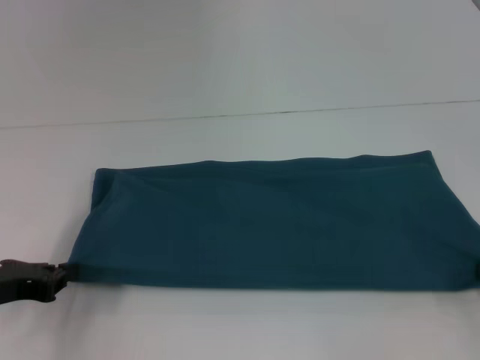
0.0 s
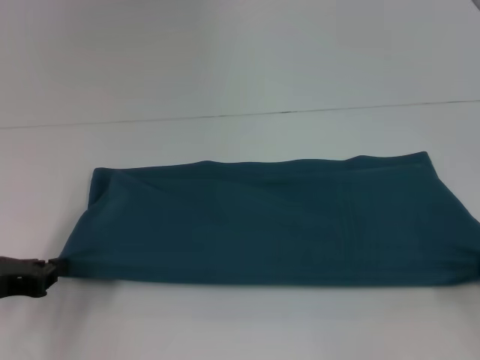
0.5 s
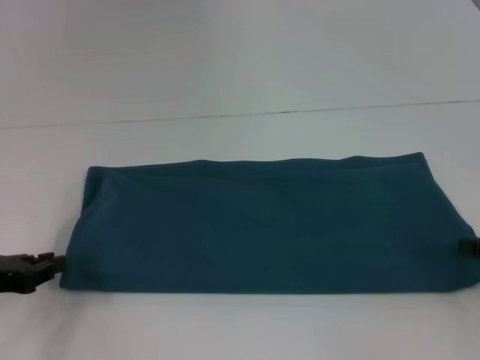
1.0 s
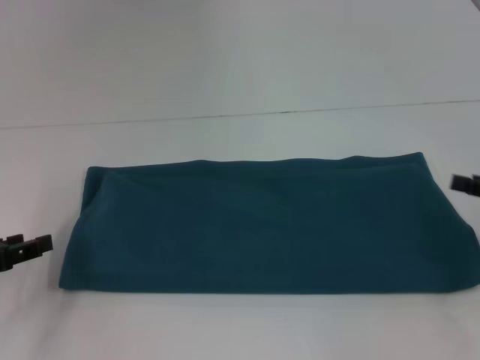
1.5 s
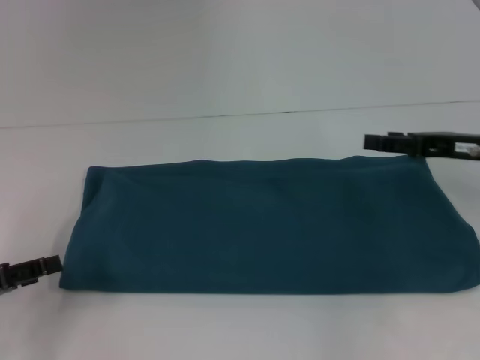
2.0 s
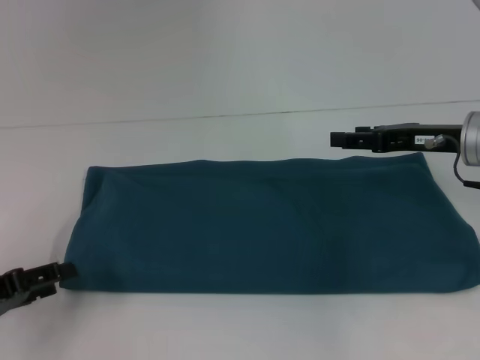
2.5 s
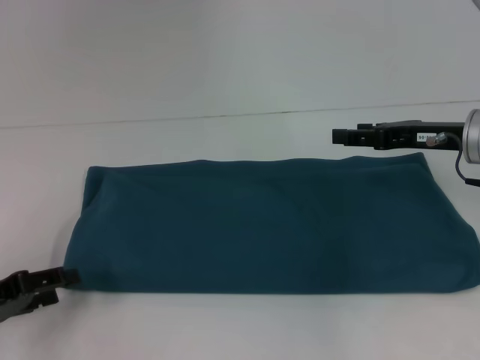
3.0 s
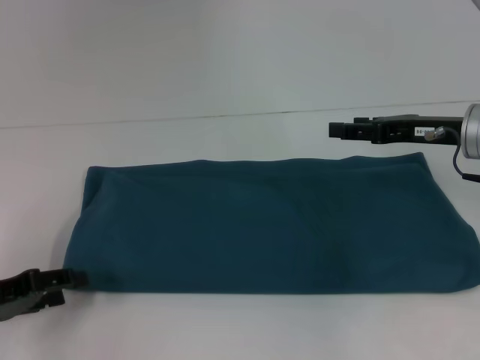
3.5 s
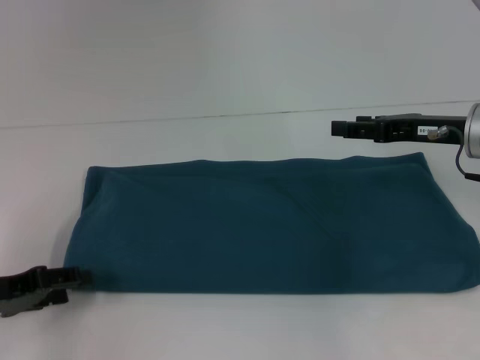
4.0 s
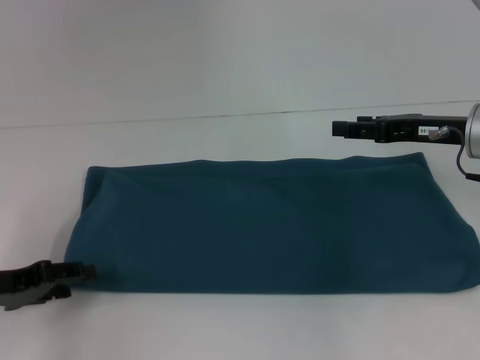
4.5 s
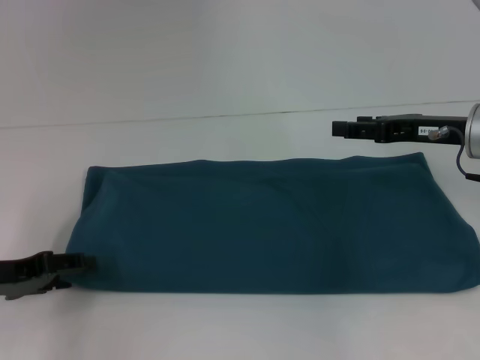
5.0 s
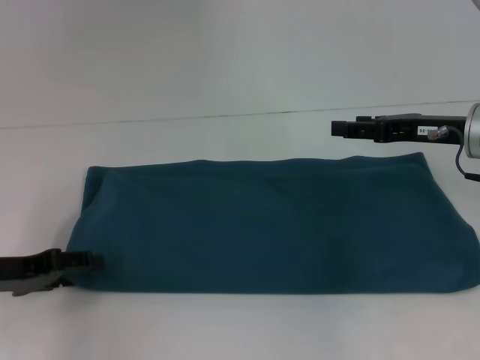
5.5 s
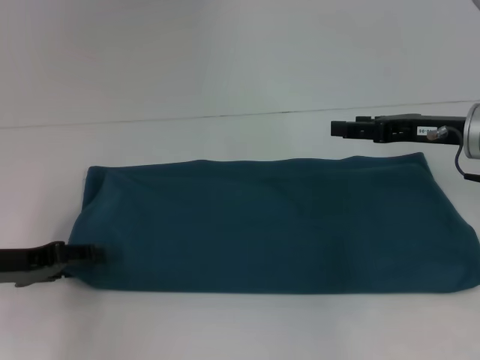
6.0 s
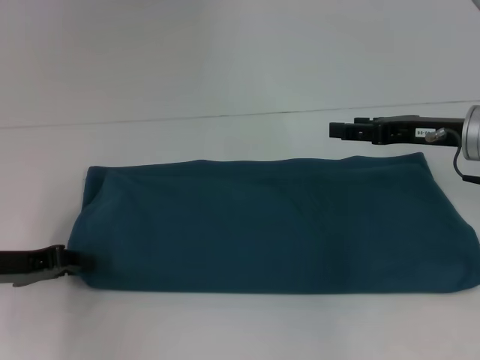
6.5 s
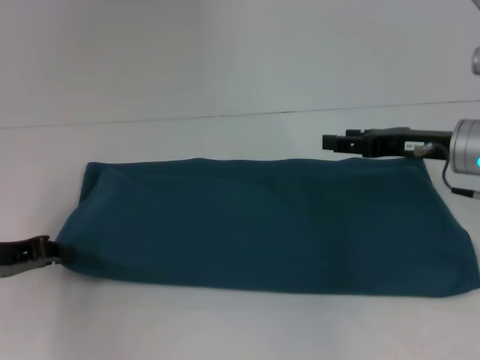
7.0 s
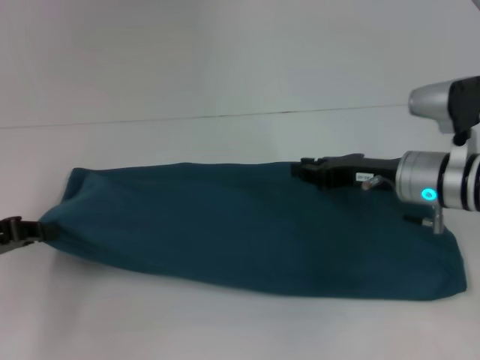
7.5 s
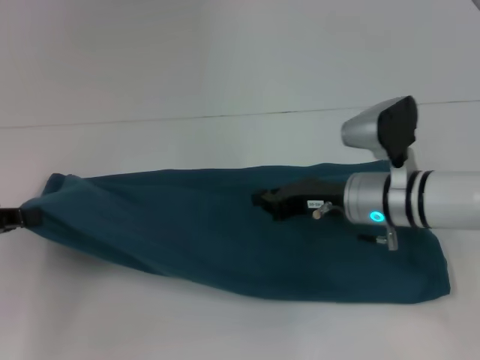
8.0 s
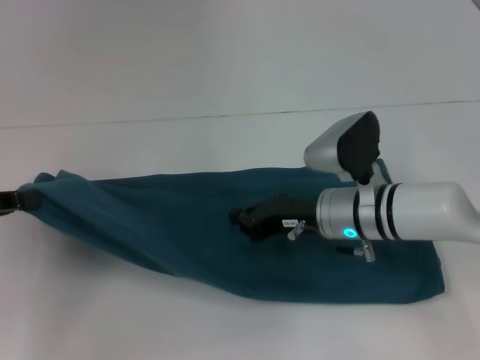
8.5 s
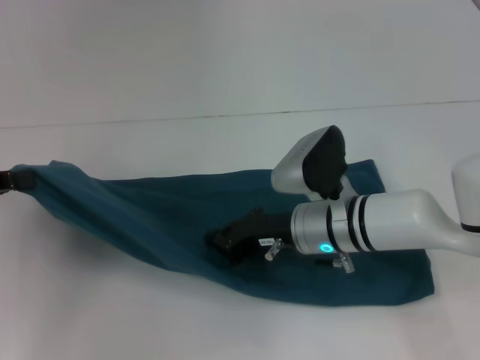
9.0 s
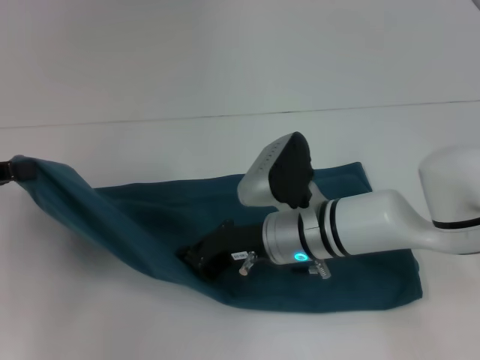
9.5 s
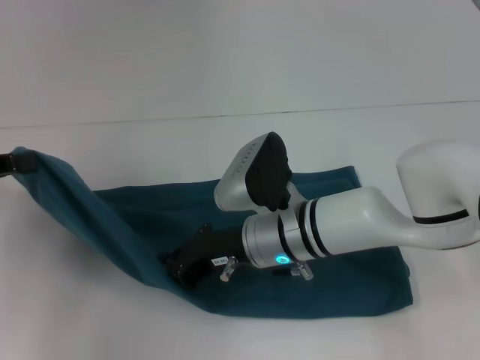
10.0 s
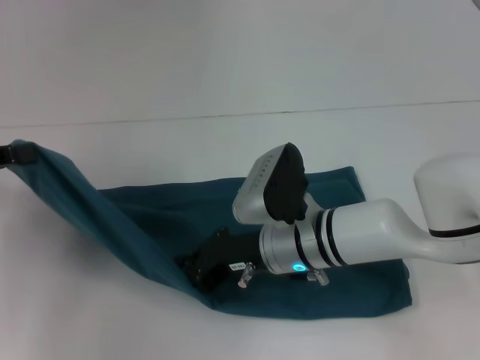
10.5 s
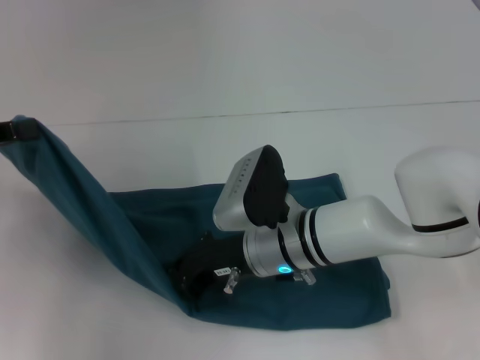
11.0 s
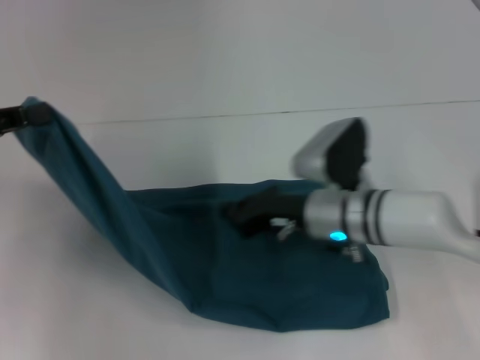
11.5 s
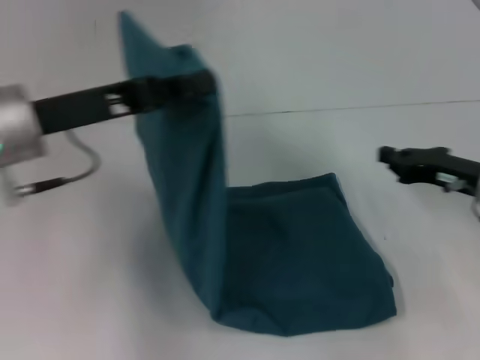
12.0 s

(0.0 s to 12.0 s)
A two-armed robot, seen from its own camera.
Step, 0.5 s - 11.0 s: Press the middle of the clothes with your right hand.
0.0 s - 2.0 s: The right gripper moves forward, to the left and upward, about 15 cm, and opens; the left gripper opens its fingers.
2.0 s - 4.0 s: The grippers move only a little.
4.0 s - 6.0 s: The grippers move only a little.
6.0 s - 8.0 s: The right gripper shifts some 15 cm to the left and downward, and closes, while the left gripper heads upward, covering about 5 cm, and closes.
8.0 s - 10.0 s: The right gripper goes roughly 10 cm to the left.
10.0 s - 12.0 s: The right gripper shifts about 25 cm to the right. The left gripper shifts approximately 15 cm to the right.

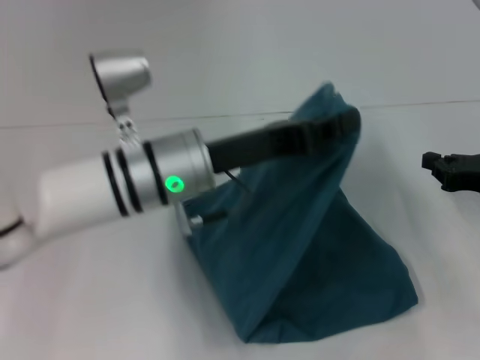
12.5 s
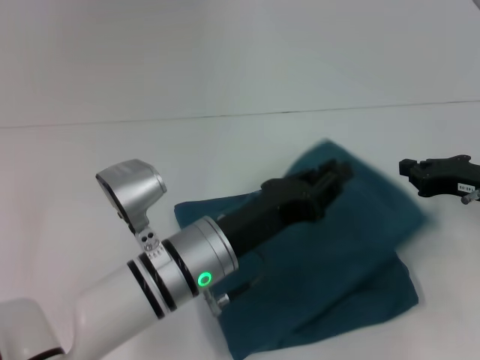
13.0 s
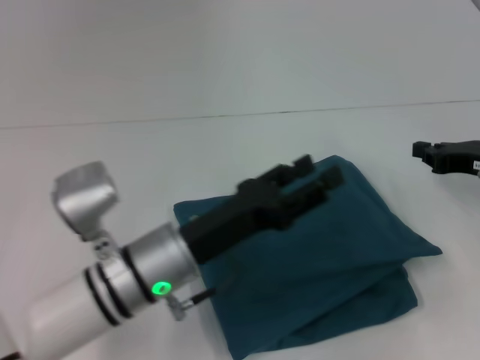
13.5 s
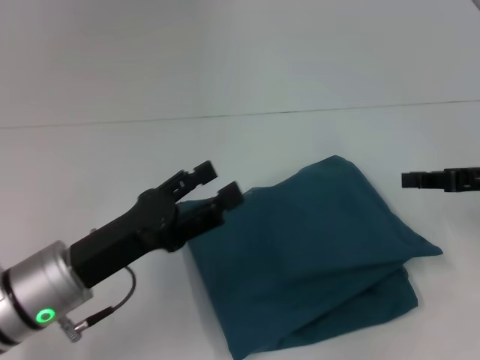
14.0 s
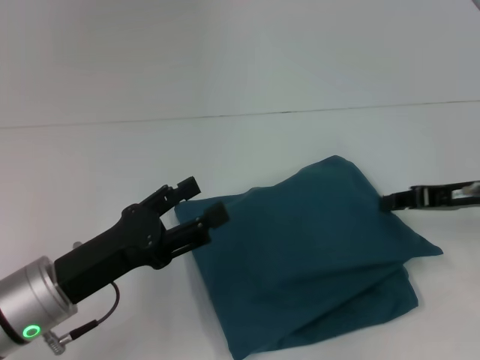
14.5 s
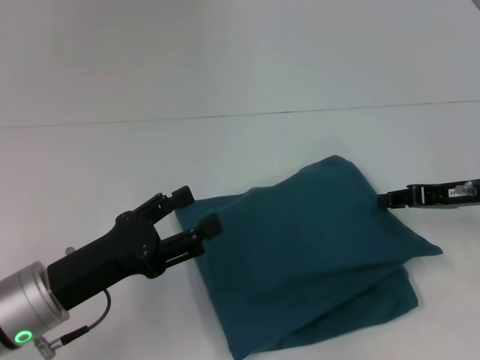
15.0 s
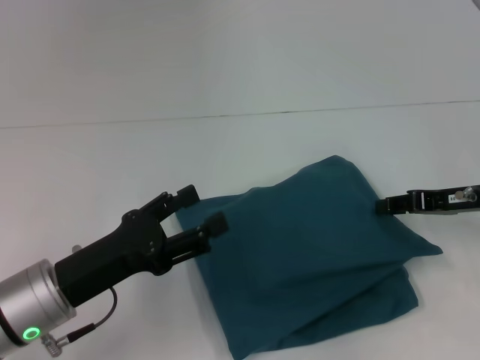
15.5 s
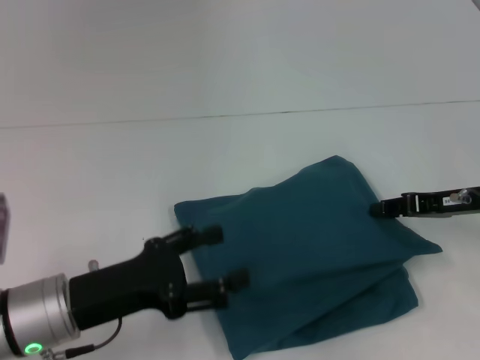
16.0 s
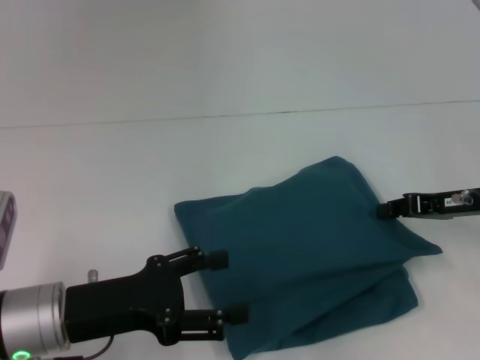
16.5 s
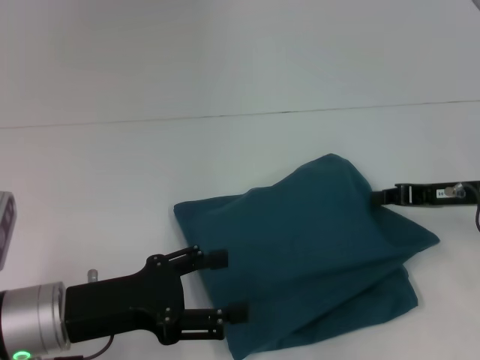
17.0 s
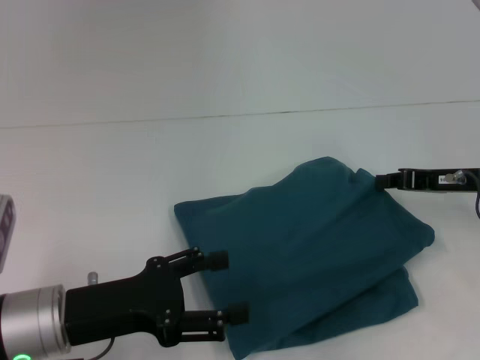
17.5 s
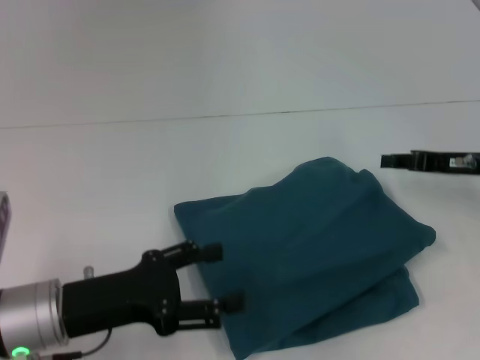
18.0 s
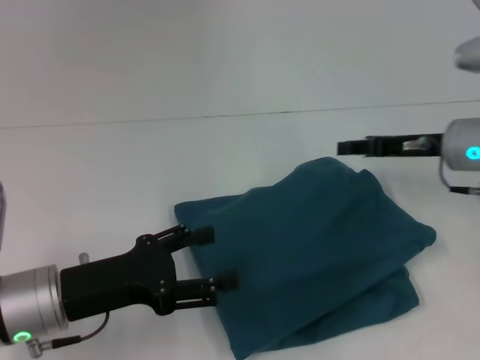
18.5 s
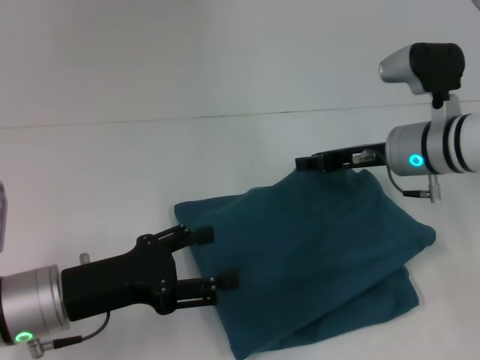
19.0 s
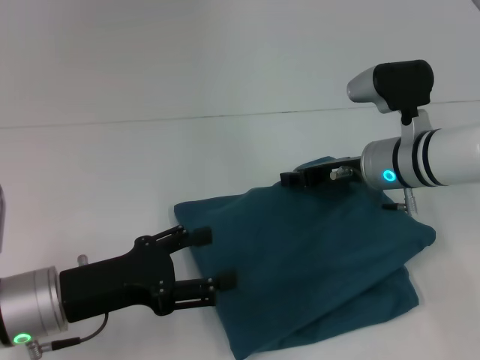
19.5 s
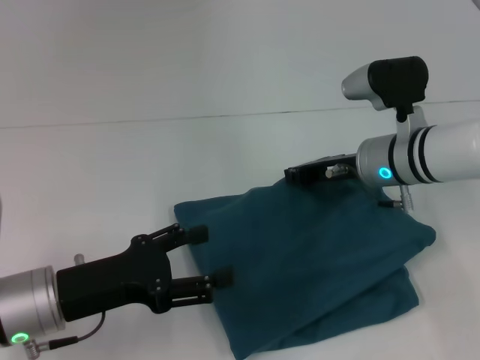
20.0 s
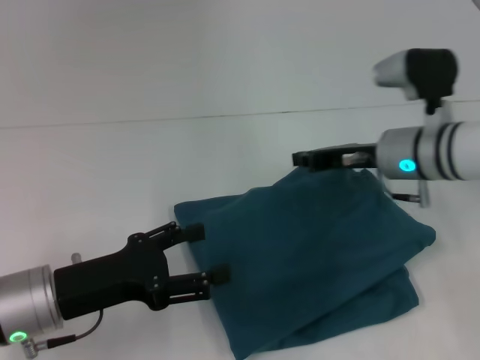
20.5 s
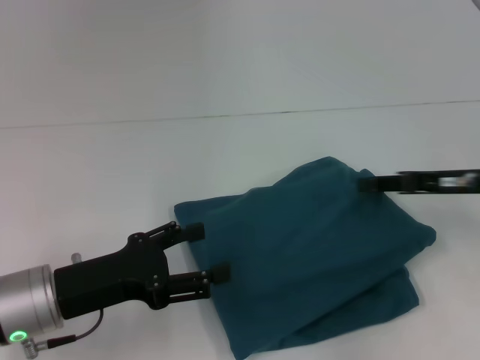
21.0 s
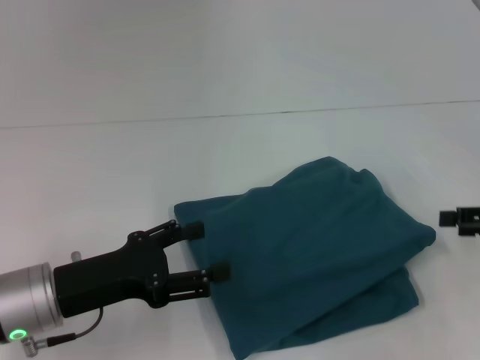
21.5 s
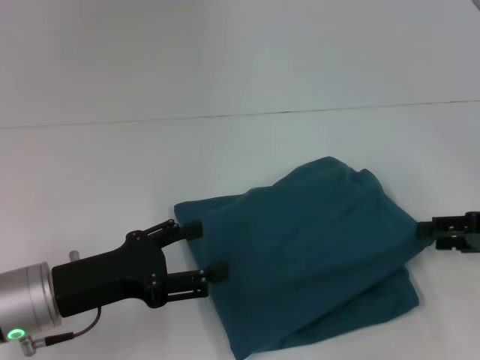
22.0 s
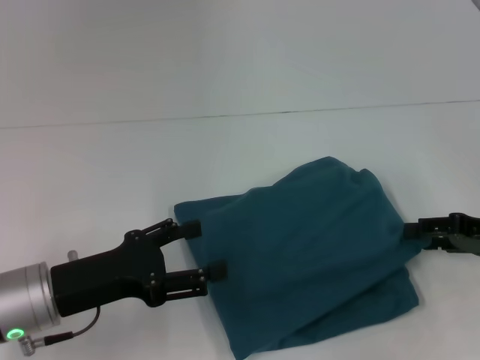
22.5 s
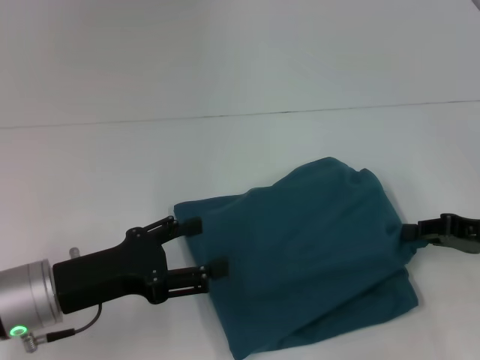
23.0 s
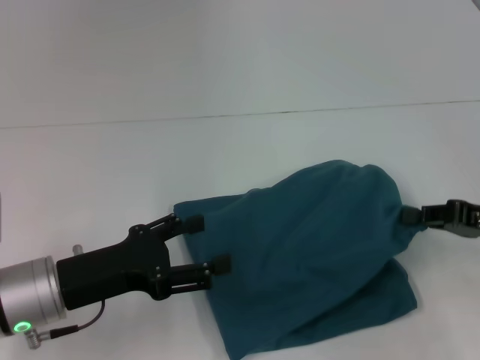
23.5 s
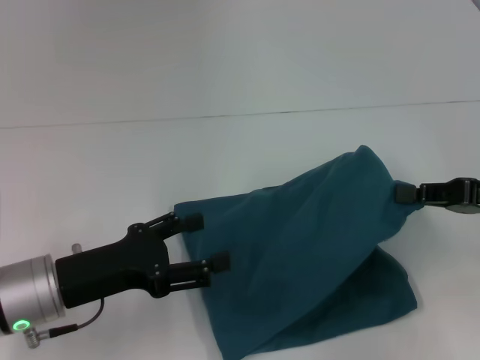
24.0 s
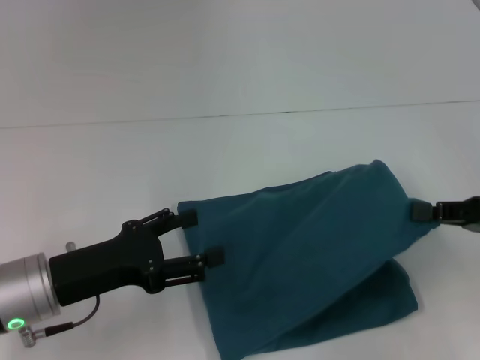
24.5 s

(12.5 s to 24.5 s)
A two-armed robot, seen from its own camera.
12.5 s - 14.5 s: The left gripper goes about 15 cm to the left, backward and downward, and opens up.
16.5 s - 18.5 s: The right gripper changes place by approximately 5 cm.
18.5 s - 20.5 s: The right gripper shifts roughly 5 cm to the left, and closes up.
20.5 s - 22.5 s: The right gripper is displaced to the right and backward by roughly 20 cm, and opens.
22.5 s - 24.5 s: The right gripper changes place by approximately 5 cm, and closes its fingers.

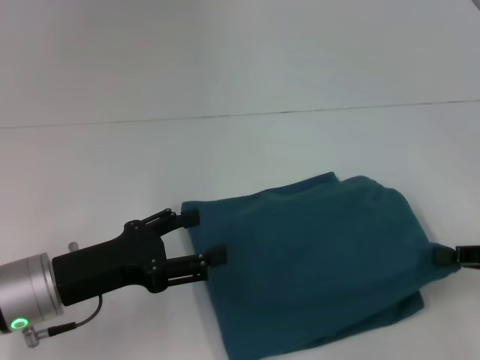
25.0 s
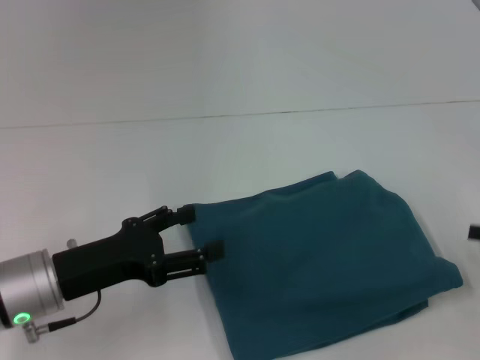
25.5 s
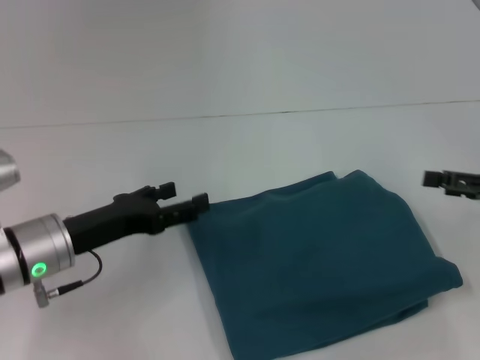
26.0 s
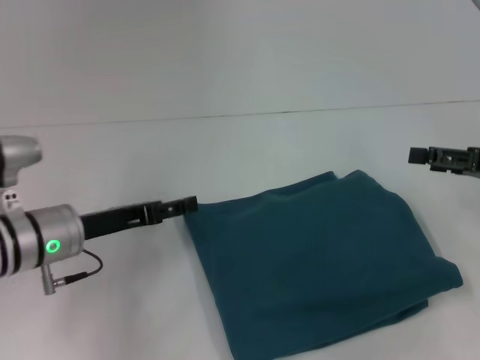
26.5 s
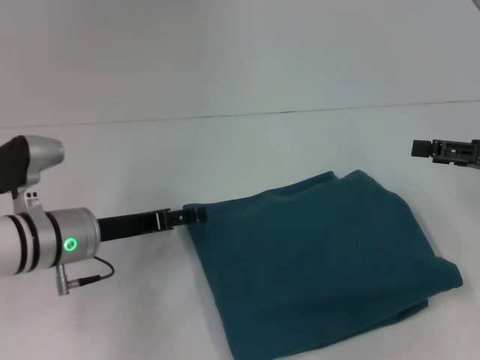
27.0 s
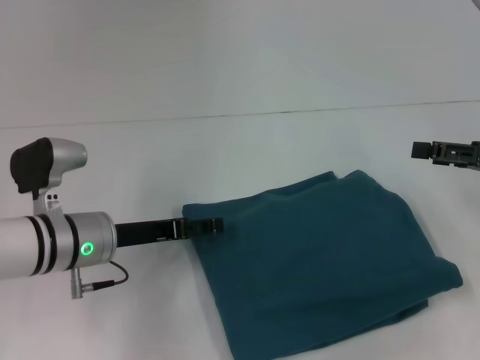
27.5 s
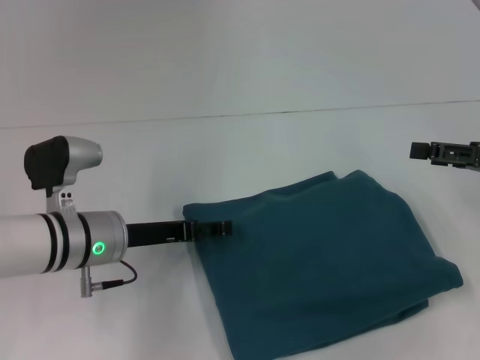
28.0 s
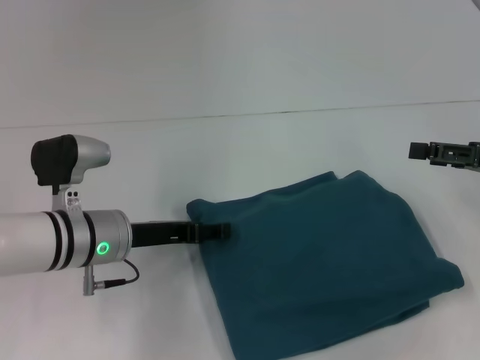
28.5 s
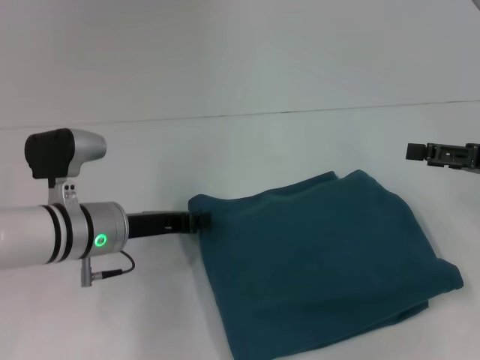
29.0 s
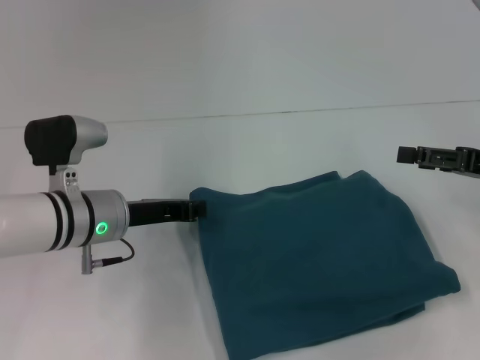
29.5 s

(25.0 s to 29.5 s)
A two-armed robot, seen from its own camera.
25.0 s - 27.0 s: The left gripper travels forward by some 10 cm. The right gripper moves forward and upward, approximately 10 cm, and opens its fingers.
27.0 s - 29.5 s: The left gripper closes up.
